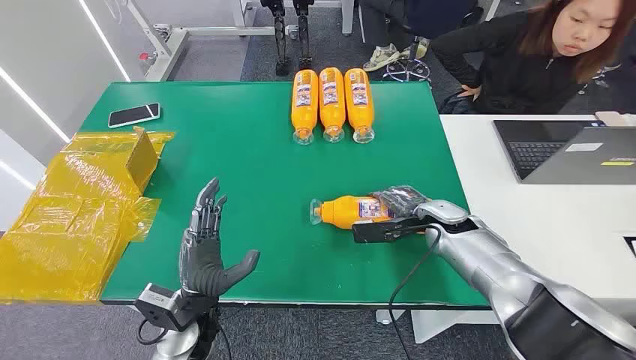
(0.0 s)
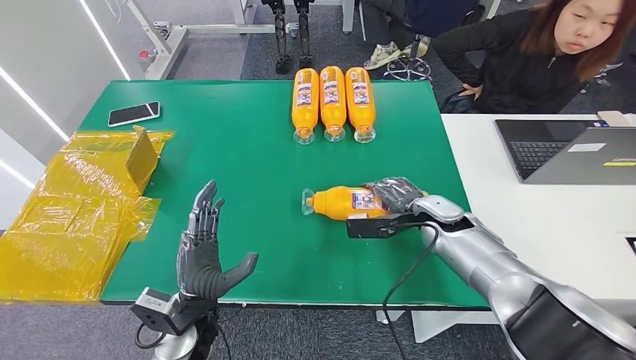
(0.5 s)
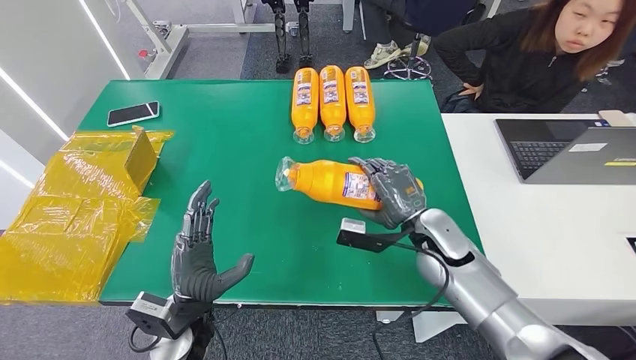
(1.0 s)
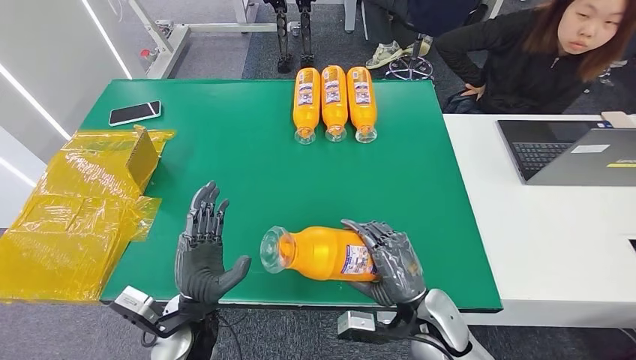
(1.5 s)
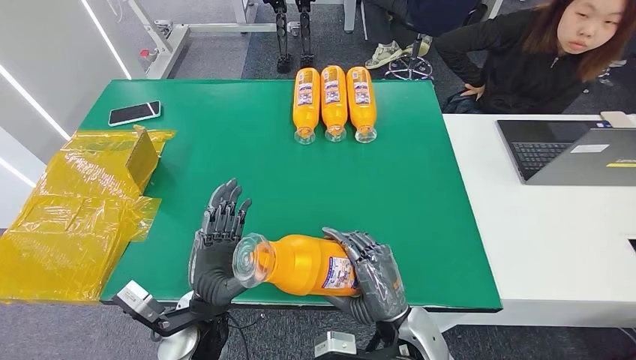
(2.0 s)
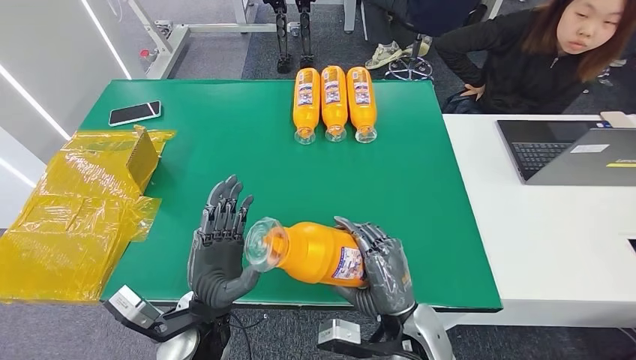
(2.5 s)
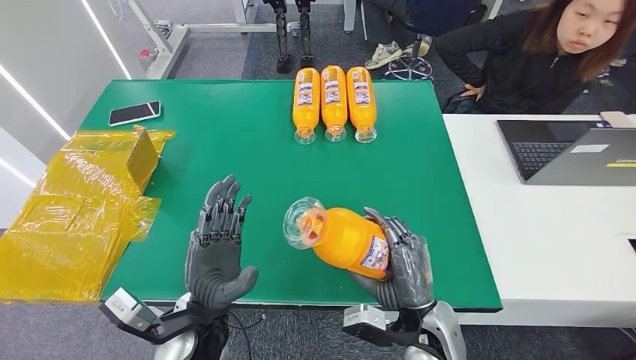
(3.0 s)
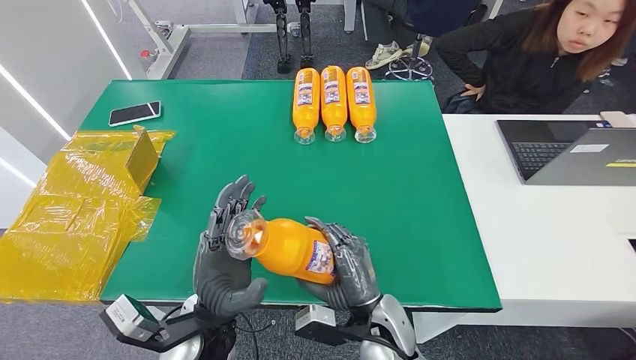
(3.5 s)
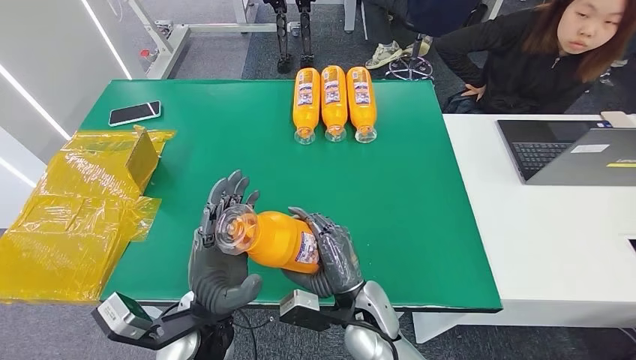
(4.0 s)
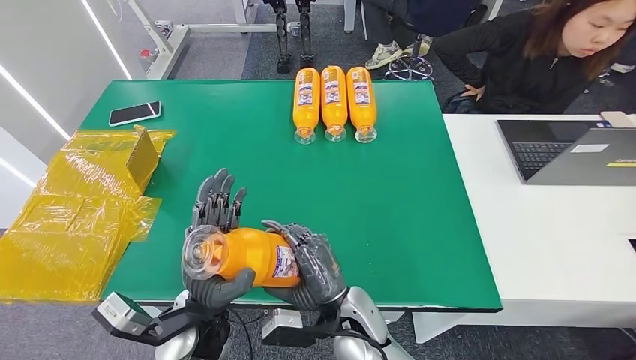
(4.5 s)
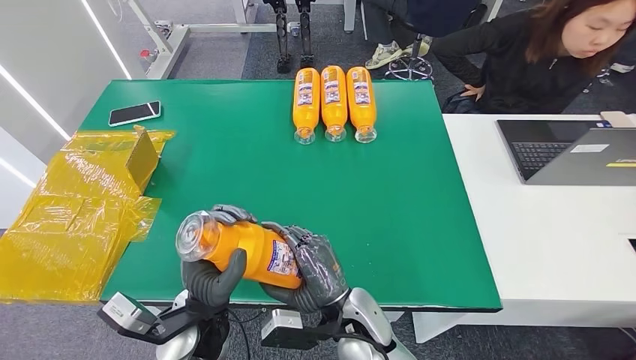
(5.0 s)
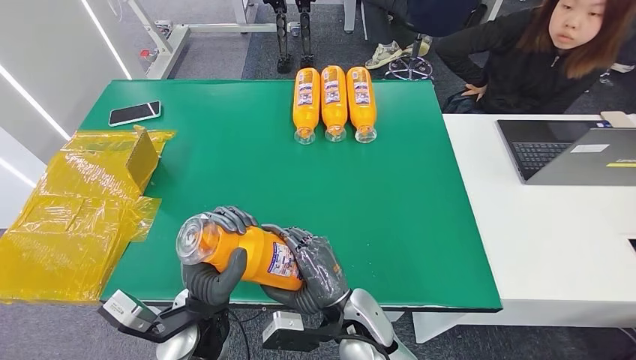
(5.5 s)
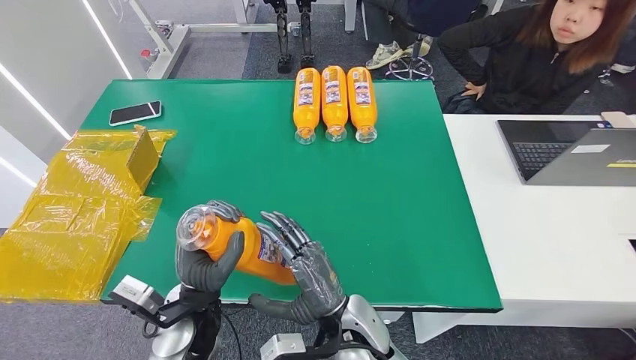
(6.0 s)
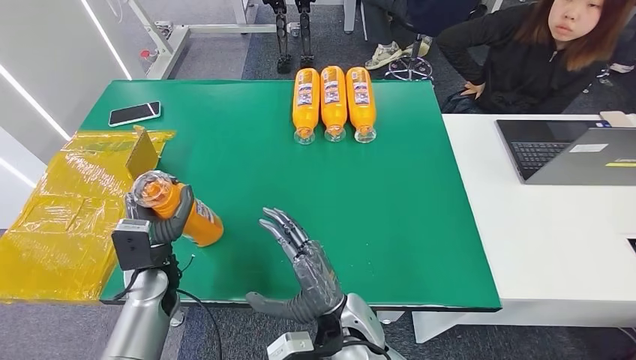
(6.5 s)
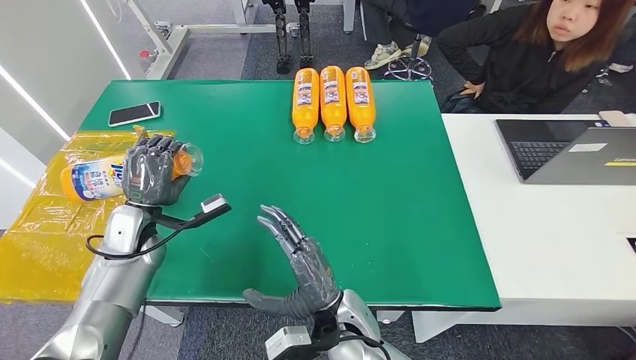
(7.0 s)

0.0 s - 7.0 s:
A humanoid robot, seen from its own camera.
Step, 0.0 s - 3.0 s: Pick up the bottle from the table.
Step, 3.5 s - 7.0 s: Turn the bottle to the front side.
2.0 s - 3.5 s: The right hand ends up some 5 cm from where it was.
3.5 s - 5.0 s: The right hand ends up roughly 5 cm from where it was.
5.0 s - 7.0 s: The left hand goes some 25 cm to the left and forward.

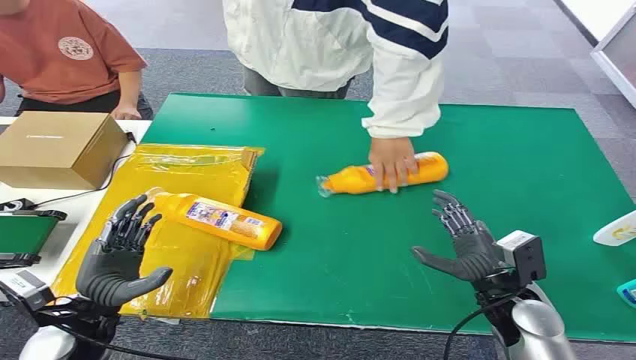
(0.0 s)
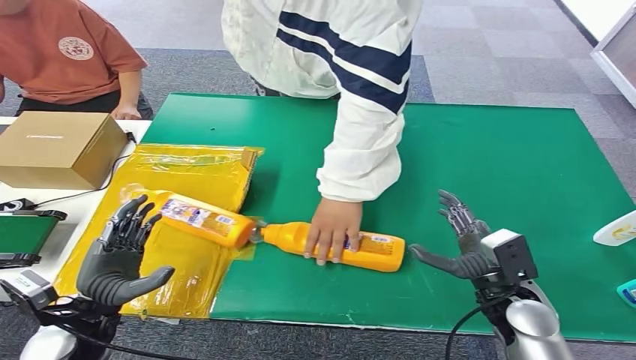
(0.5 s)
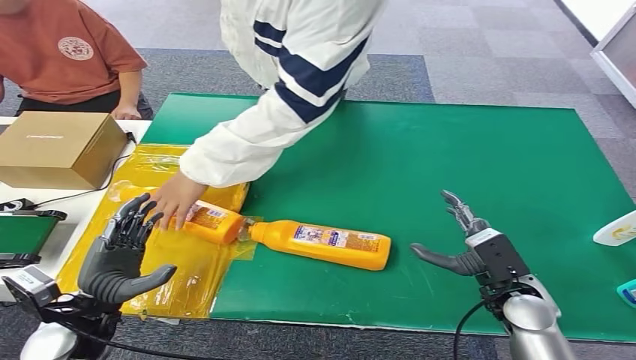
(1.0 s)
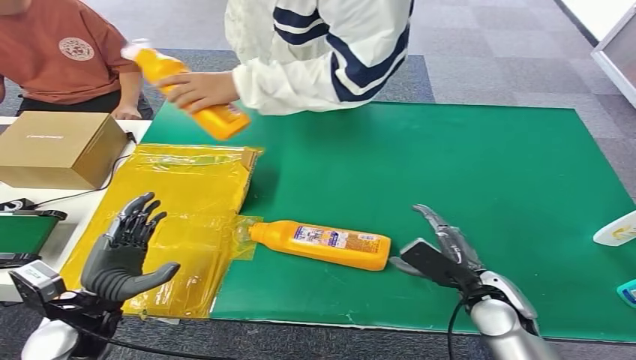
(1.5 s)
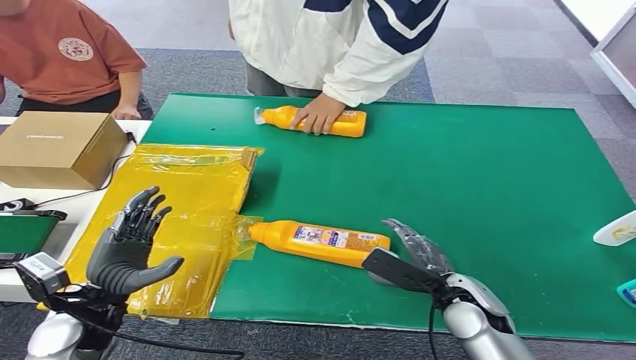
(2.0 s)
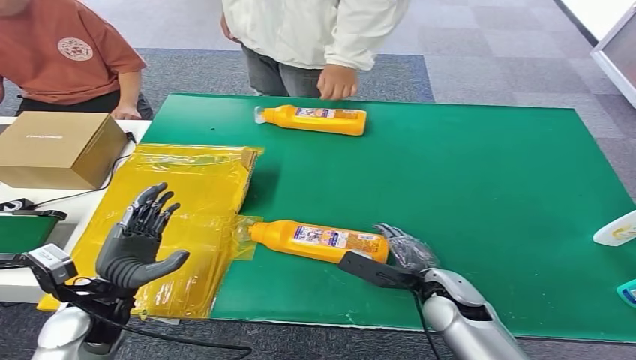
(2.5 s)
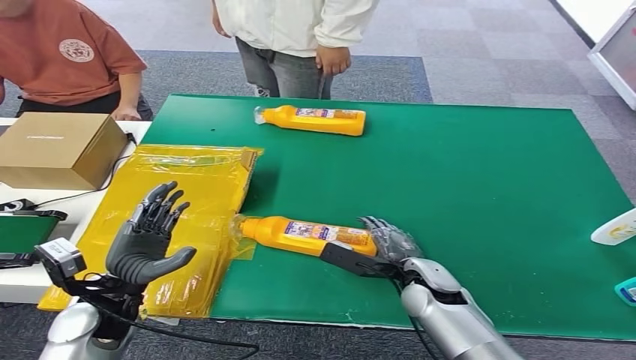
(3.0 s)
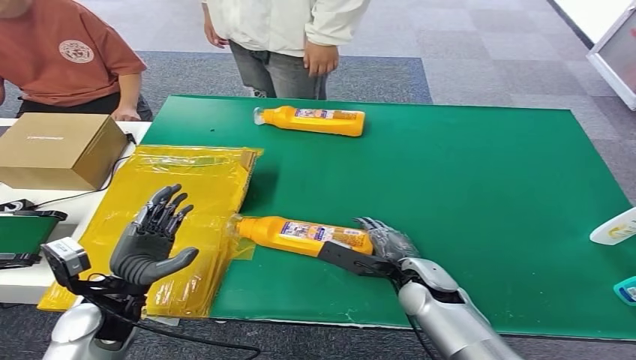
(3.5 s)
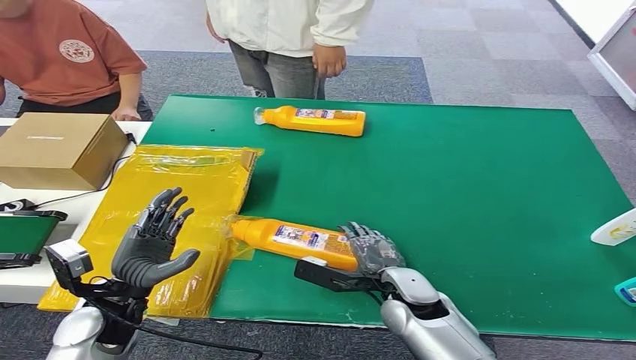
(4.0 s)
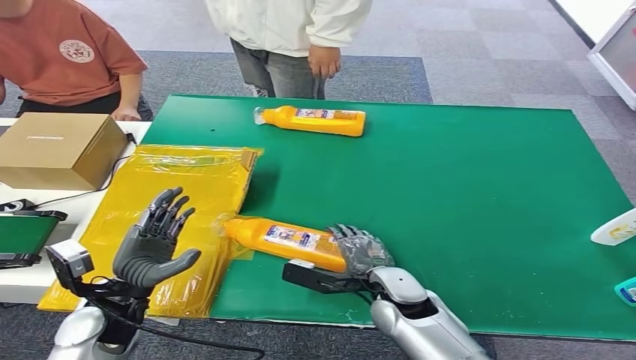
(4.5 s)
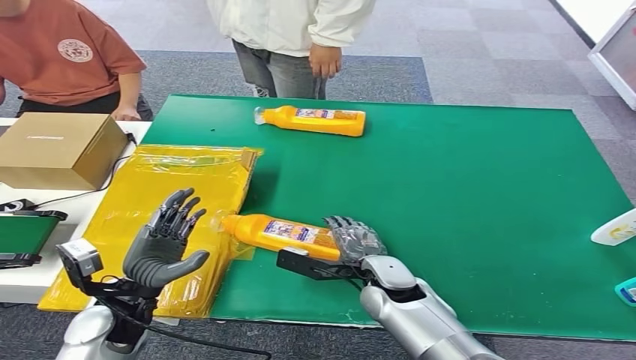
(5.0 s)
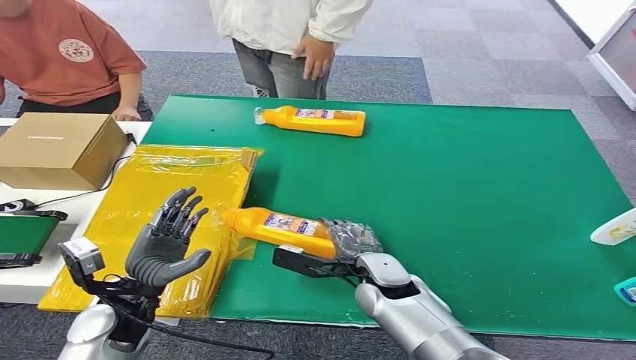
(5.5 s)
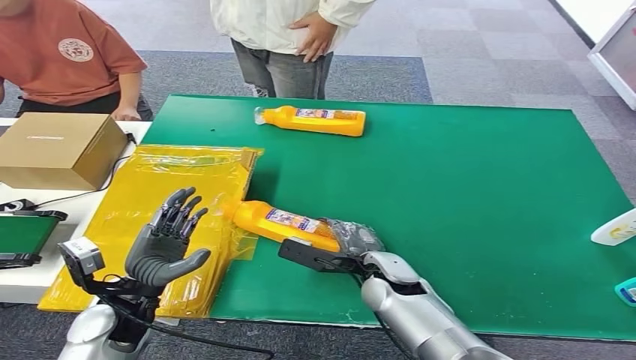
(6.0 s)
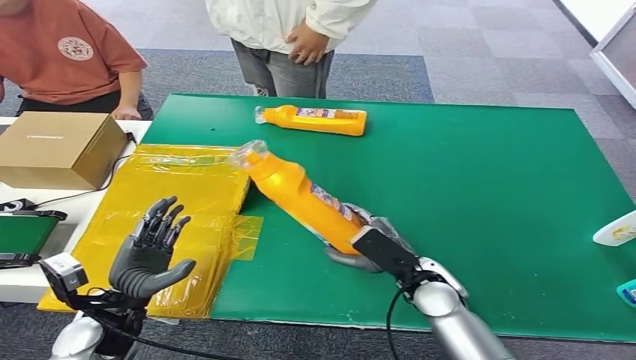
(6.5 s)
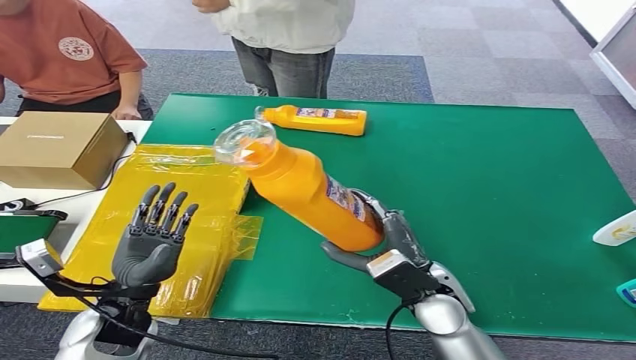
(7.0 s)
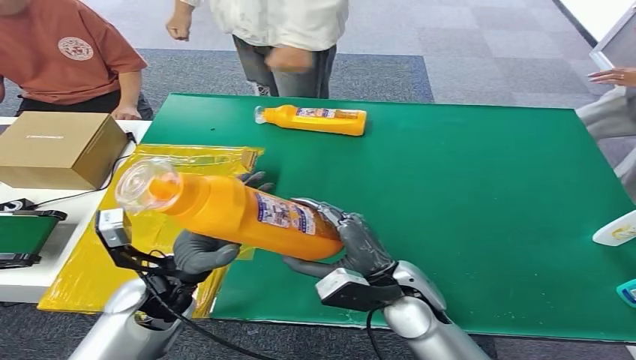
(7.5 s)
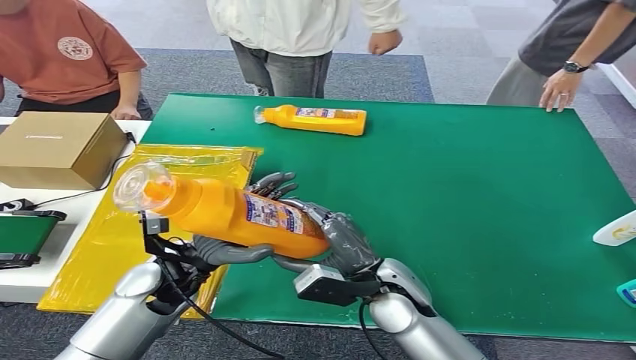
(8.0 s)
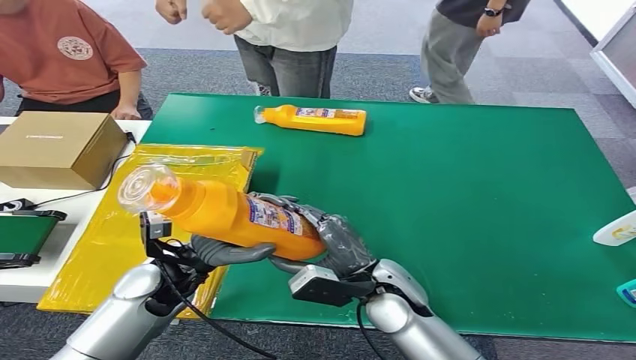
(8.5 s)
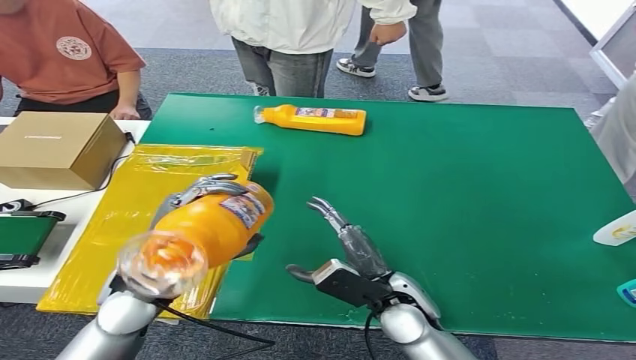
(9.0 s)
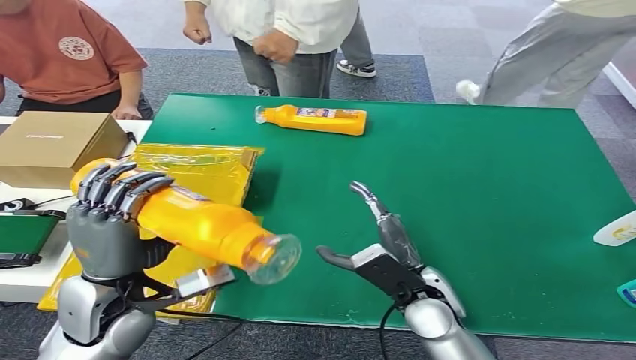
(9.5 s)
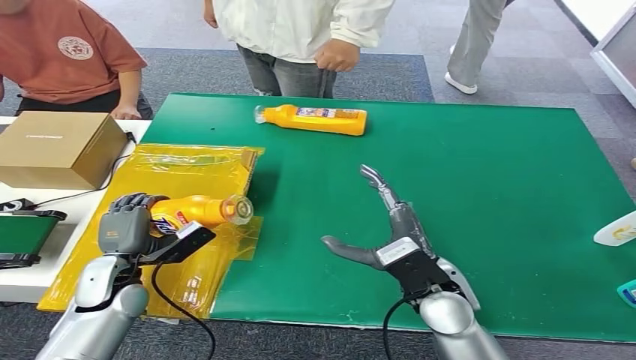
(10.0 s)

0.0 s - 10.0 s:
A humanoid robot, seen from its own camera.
Step, 0.0 s - 7.0 s: Pick up the bottle from the table.
4.0 s - 6.0 s: The hands move only a little.

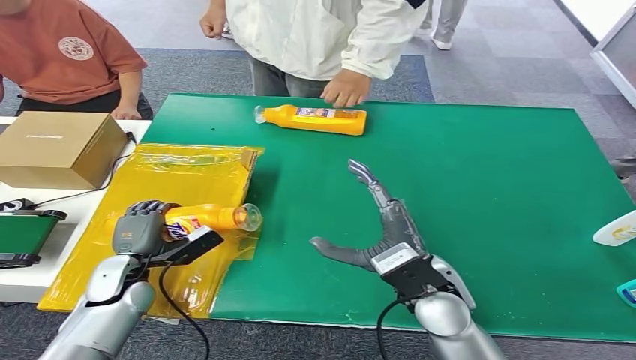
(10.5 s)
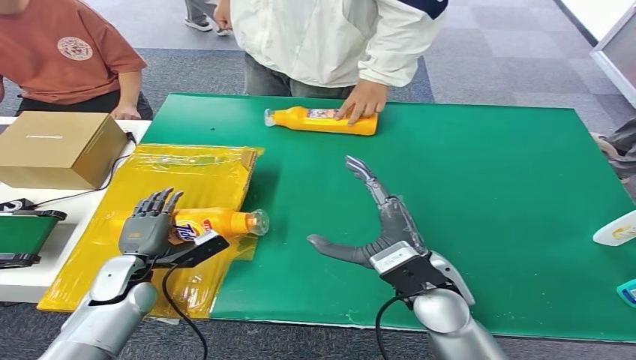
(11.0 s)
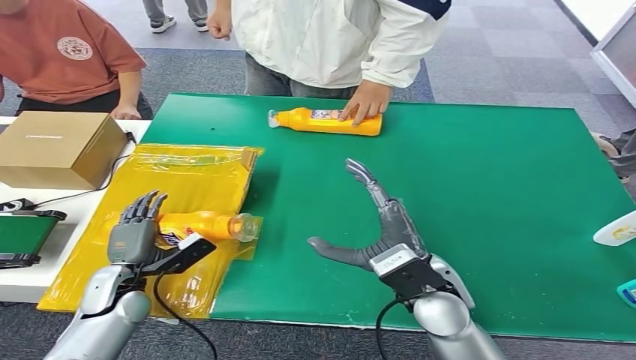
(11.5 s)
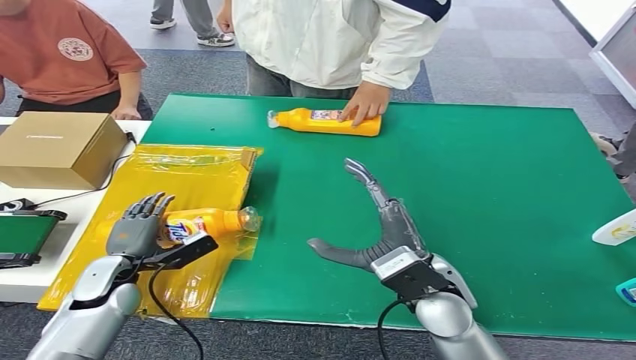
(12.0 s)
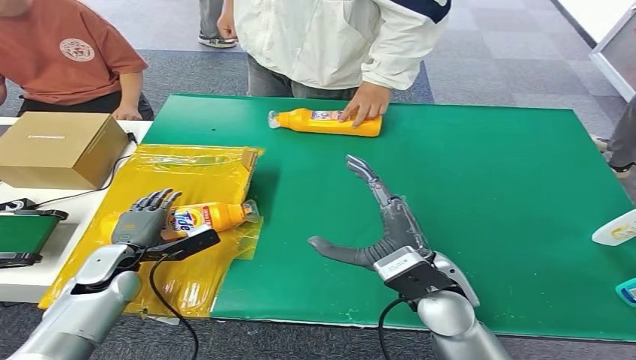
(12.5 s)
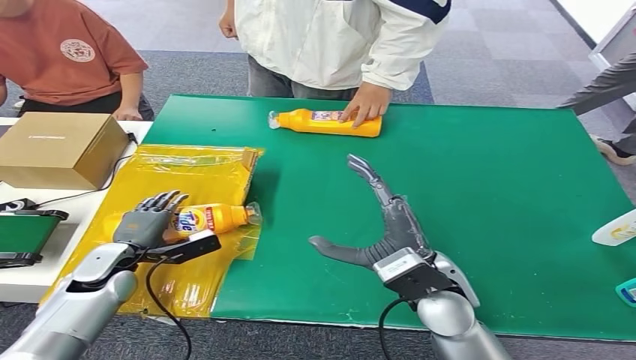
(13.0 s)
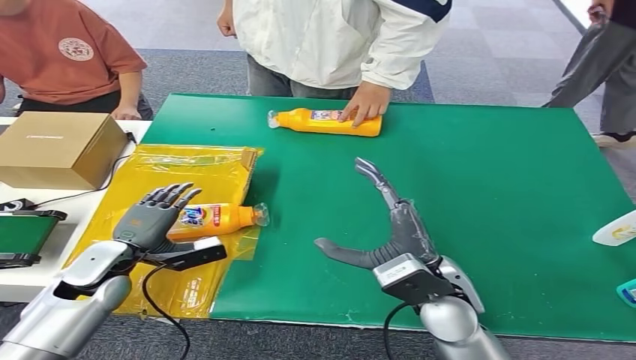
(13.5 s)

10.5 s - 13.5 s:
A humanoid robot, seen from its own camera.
Step, 10.5 s - 13.5 s: Turn the bottle to the front side.
10.5 s - 12.0 s: The hands stay close to where they were, moving slightly.
12.0 s - 13.5 s: The hands move only a little.
